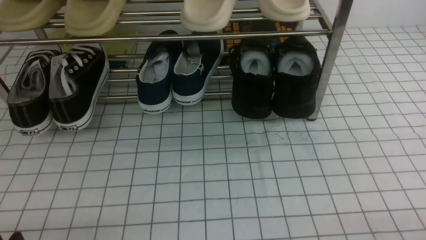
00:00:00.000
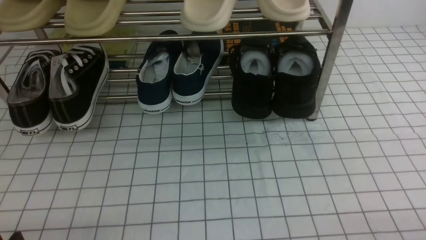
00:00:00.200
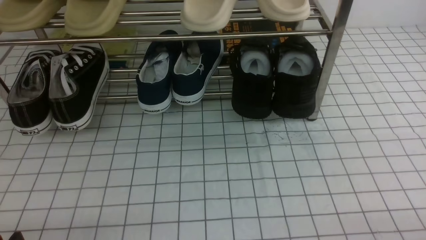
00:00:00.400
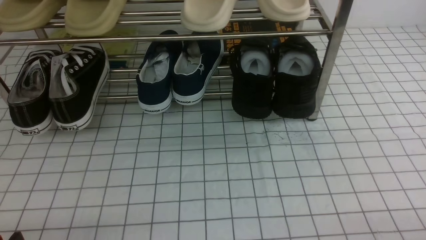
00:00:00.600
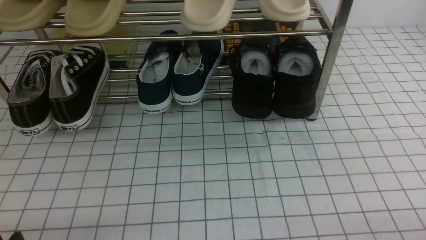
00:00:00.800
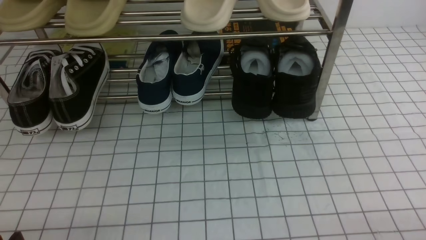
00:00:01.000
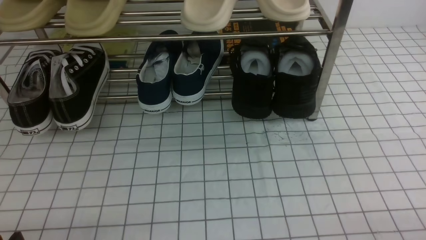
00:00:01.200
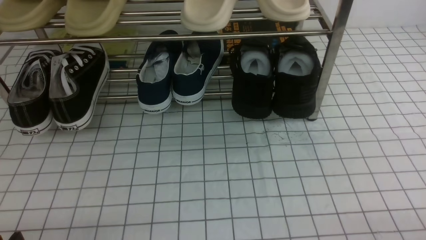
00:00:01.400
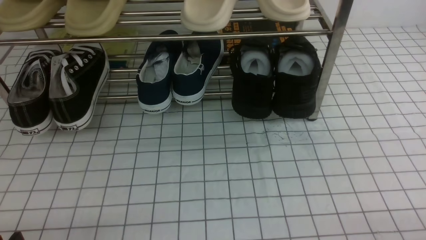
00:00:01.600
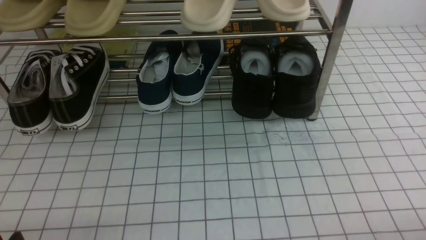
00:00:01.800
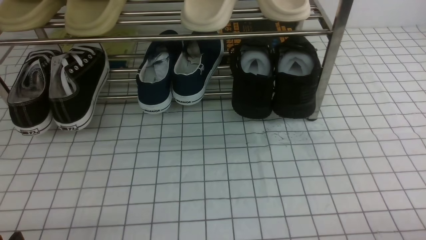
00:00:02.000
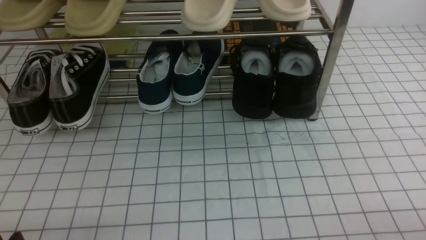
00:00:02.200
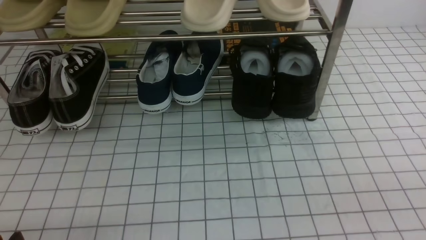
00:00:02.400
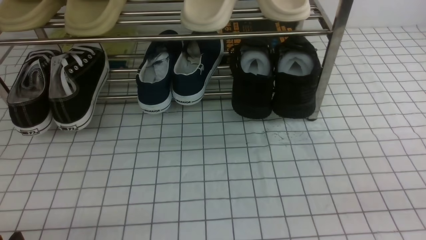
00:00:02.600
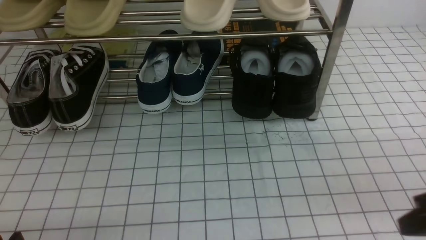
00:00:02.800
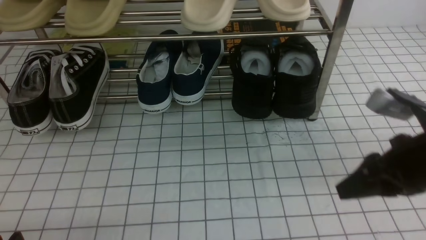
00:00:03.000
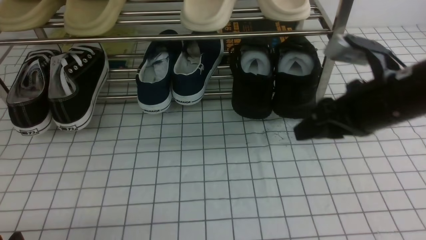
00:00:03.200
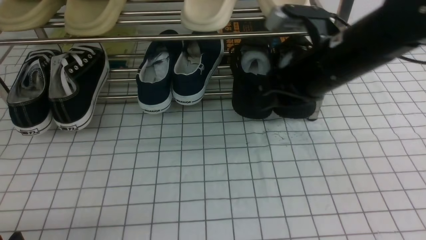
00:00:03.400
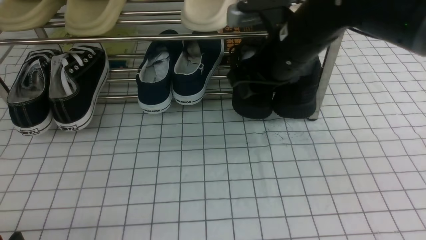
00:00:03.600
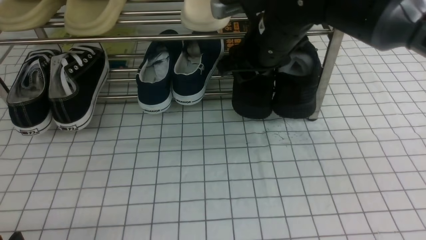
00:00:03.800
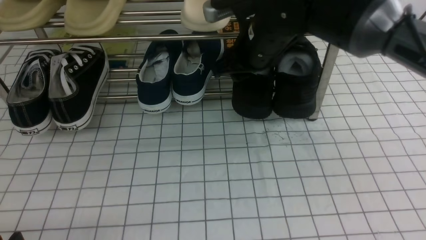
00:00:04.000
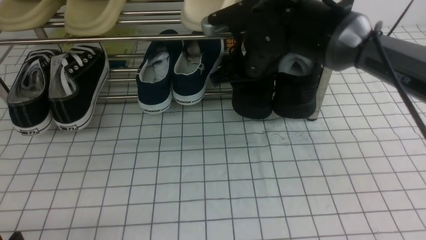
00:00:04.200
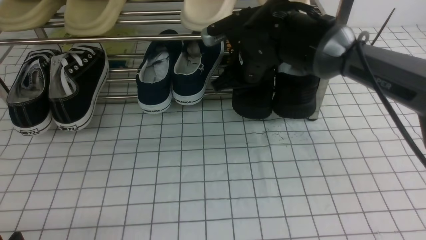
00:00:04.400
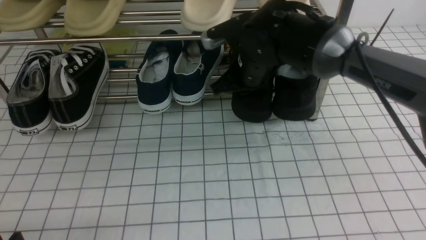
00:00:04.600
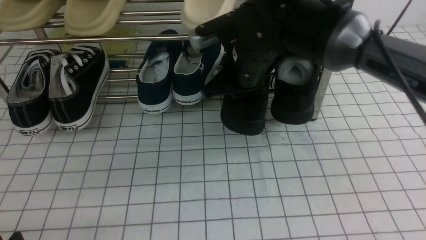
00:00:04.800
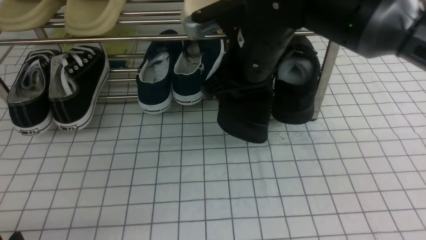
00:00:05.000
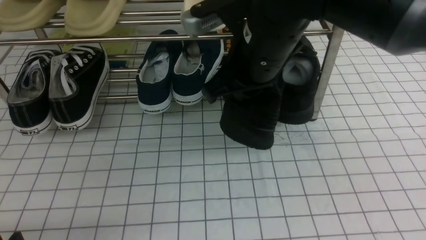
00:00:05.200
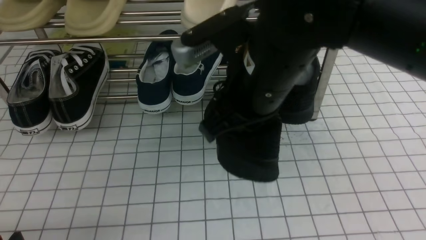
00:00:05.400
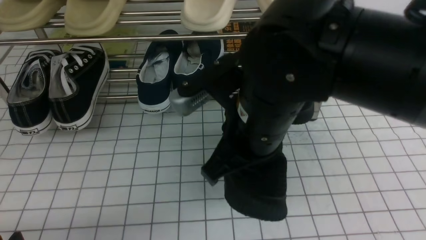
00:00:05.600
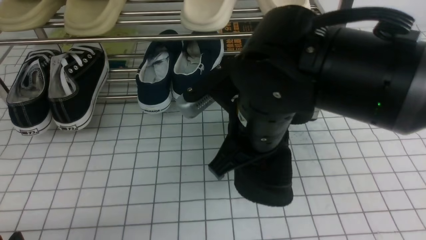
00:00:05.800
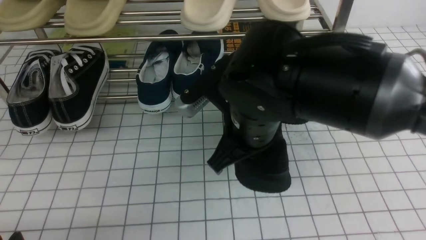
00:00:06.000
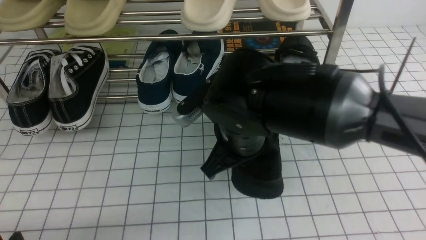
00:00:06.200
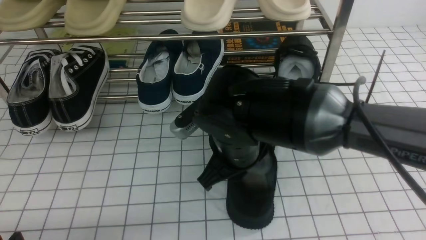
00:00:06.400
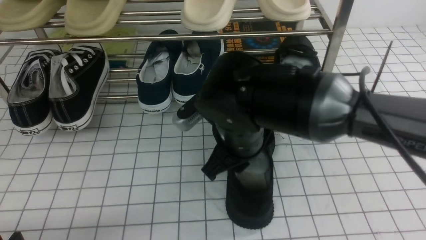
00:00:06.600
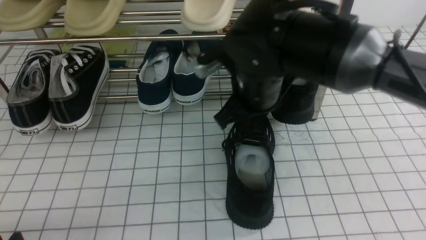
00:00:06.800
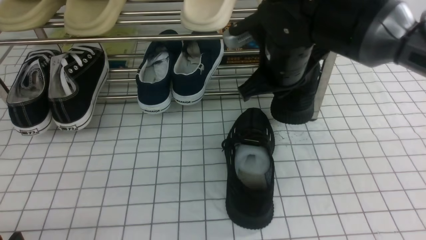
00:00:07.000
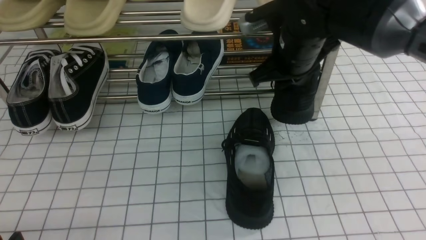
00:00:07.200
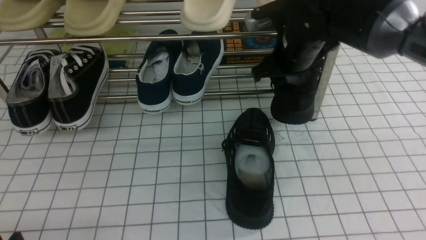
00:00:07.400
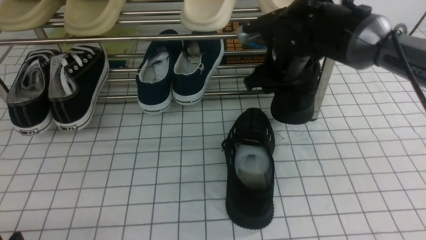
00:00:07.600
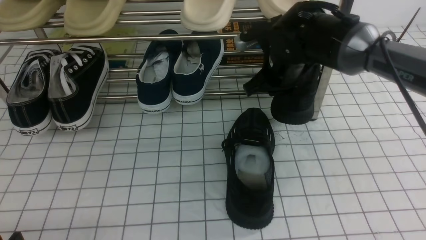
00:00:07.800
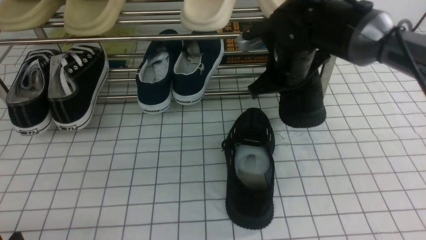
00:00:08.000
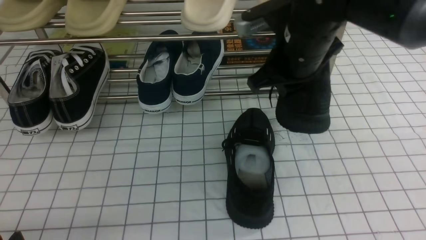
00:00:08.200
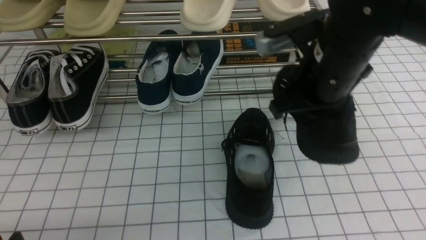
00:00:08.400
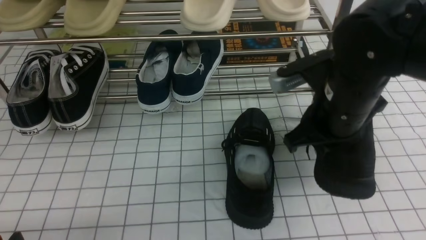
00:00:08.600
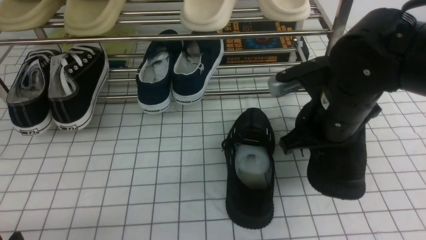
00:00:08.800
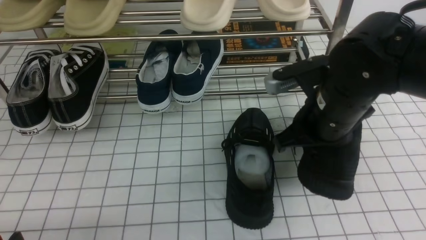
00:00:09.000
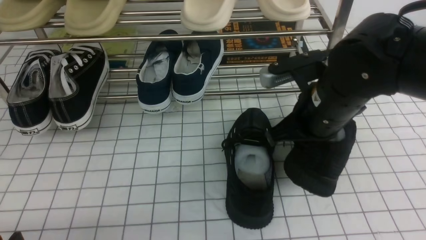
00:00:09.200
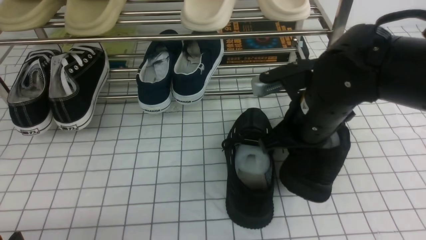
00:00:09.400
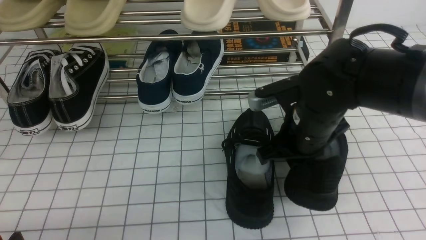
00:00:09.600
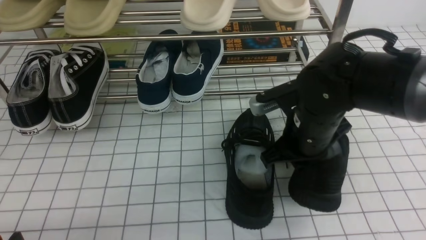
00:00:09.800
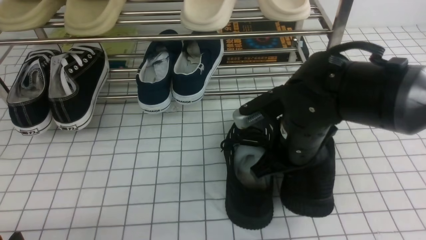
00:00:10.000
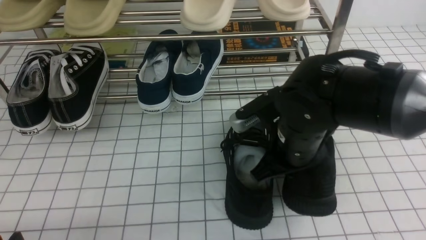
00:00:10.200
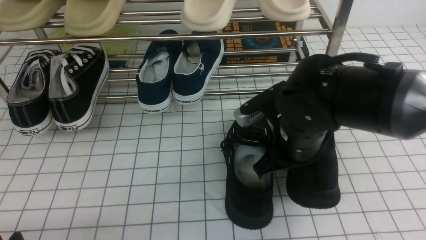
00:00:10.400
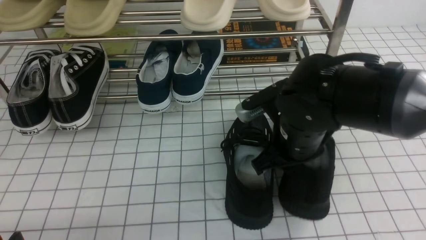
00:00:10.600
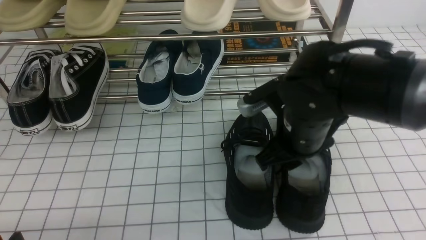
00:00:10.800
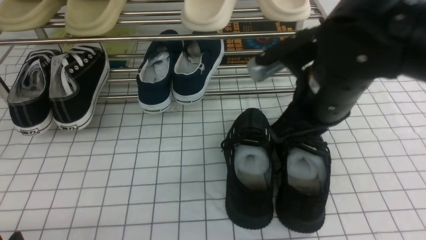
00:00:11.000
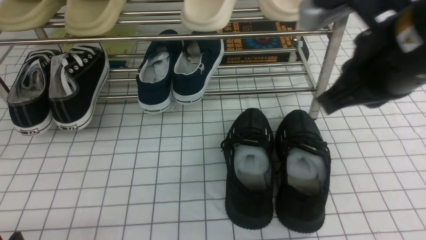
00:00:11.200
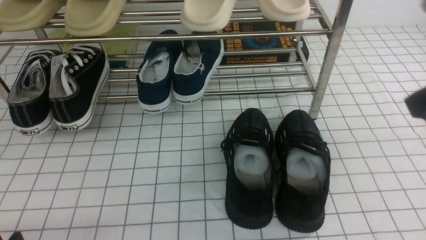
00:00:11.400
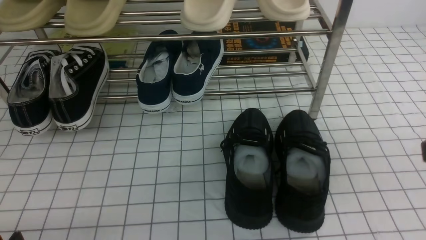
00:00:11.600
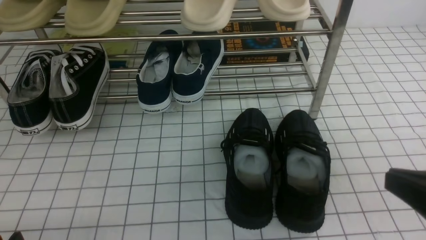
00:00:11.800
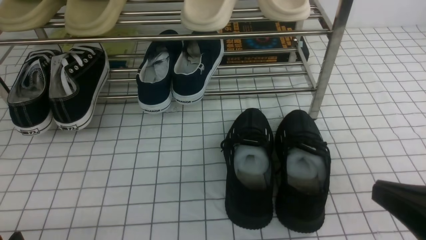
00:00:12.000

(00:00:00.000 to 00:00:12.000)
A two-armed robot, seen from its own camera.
Step, 00:00:00.000 - 00:00:04.400: use the right arm to clamp a shoe on the right side of the shoe rack.
Step, 00:00:04.600 - 00:00:06.600: use the right arm to take out the clamped shoe from the shoe rack and put it down.
Step, 00:00:06.800 - 00:00:07.600: use the right arm to clamp a shoe on the right side of the shoe rack.
Step, 00:00:07.800 - 00:00:11.000: use the right arm to take out the clamped shoe from the shoe rack and put it down.
00:00:01.600 - 00:00:03.000: The right gripper is displaced forward, upward and to the left by some 20 cm, and closes and opens again.
00:00:03.000 - 00:00:04.400: The right gripper moves forward and to the left, some 25 cm.
00:00:04.400 - 00:00:06.000: The right gripper goes about 15 cm backward, and closes.
00:00:06.000 - 00:00:07.600: The right gripper goes roughly 20 cm forward and to the right, and opens.
00:00:07.600 - 00:00:09.000: The right gripper is displaced backward by about 15 cm, and closes.
00:00:09.000 - 00:00:10.400: The right gripper moves roughly 5 cm.
00:00:10.400 - 00:00:12.000: The right gripper heads backward and to the right, covering roughly 25 cm, and opens and closes again.

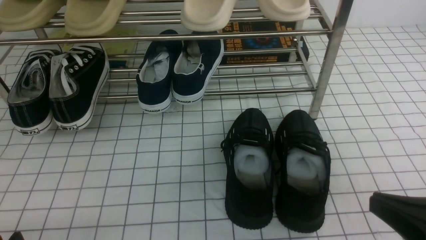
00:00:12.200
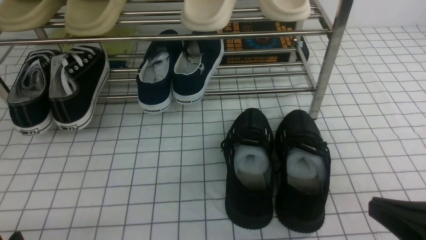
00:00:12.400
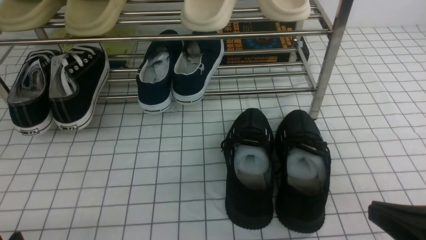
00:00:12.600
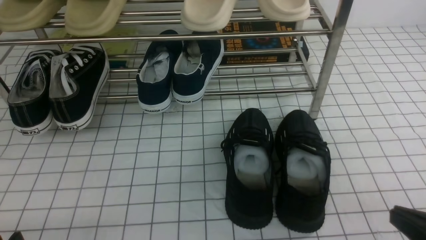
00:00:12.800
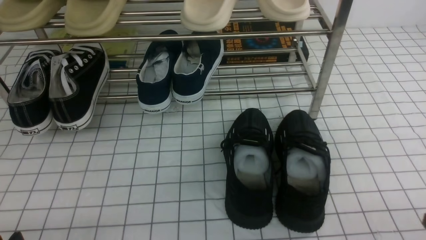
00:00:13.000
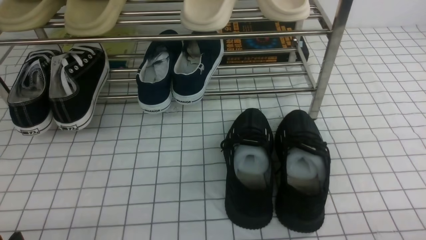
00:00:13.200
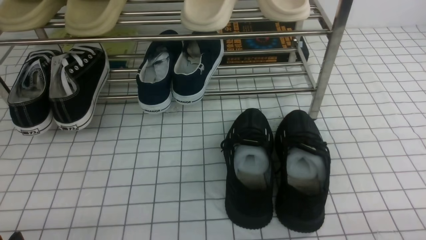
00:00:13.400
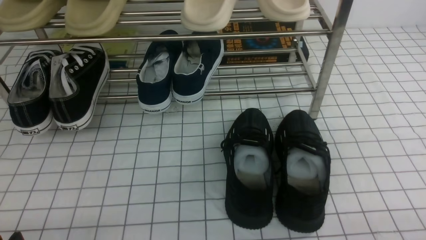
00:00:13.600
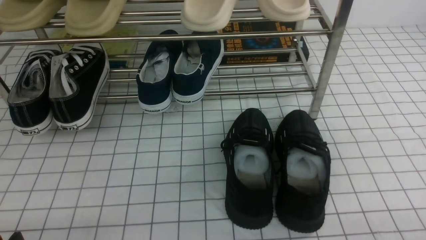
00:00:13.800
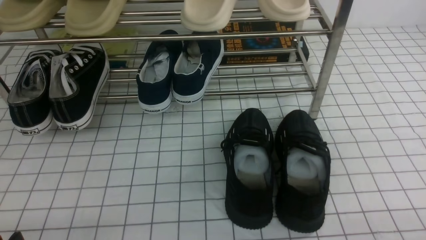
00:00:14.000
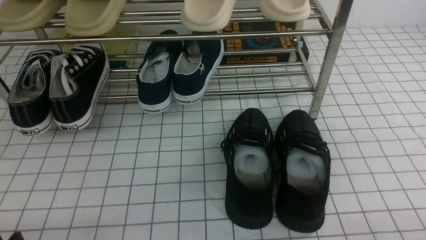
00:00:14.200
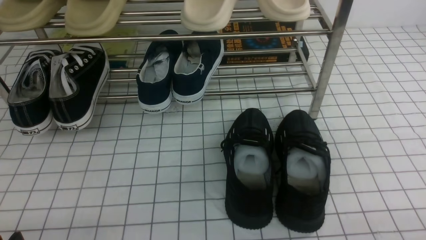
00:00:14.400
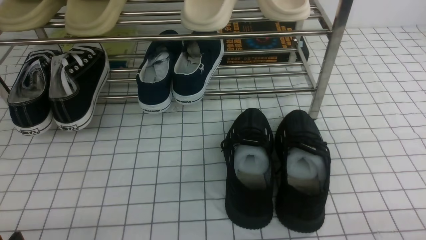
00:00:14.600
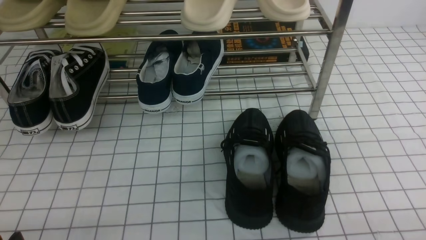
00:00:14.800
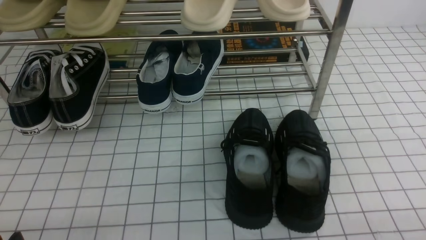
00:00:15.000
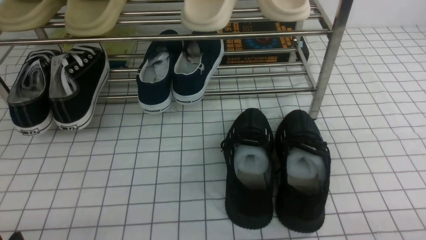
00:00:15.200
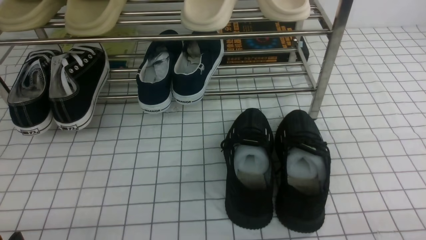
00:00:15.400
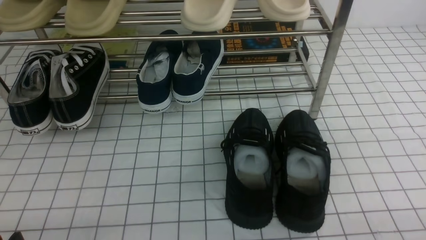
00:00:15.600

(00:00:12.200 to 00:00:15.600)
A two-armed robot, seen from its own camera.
00:00:12.200 - 00:00:13.800: The right gripper travels downward and to the right by approximately 10 cm.
00:00:13.800 - 00:00:15.600: Both grippers stay about where they are.
